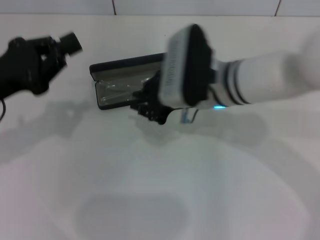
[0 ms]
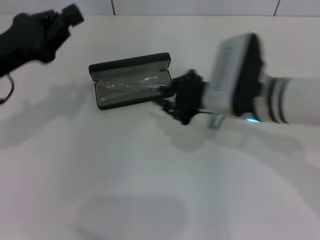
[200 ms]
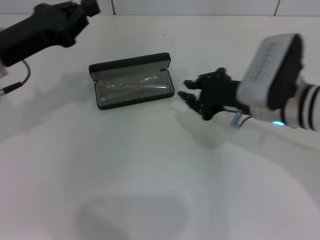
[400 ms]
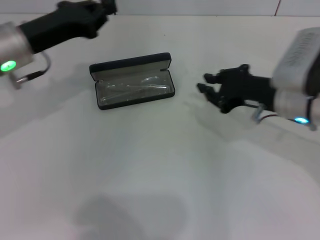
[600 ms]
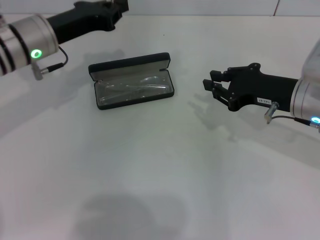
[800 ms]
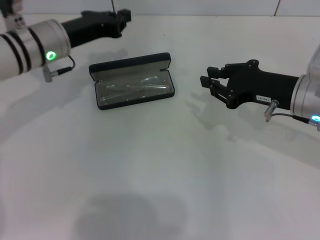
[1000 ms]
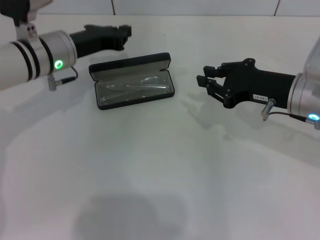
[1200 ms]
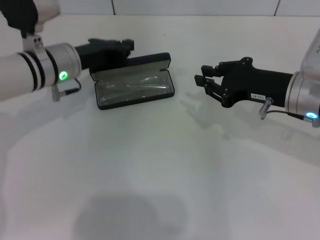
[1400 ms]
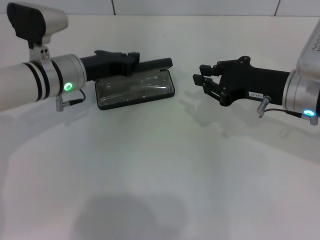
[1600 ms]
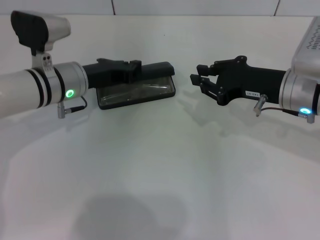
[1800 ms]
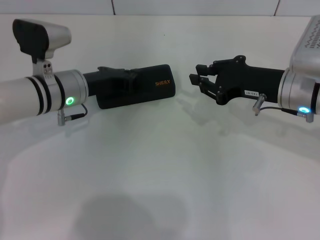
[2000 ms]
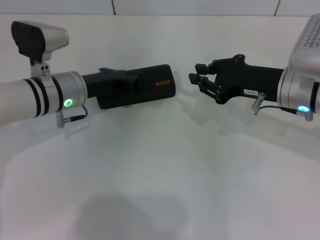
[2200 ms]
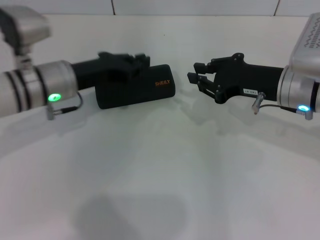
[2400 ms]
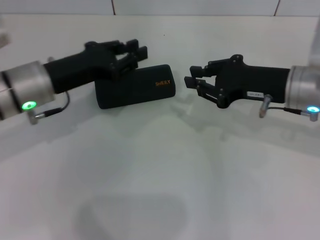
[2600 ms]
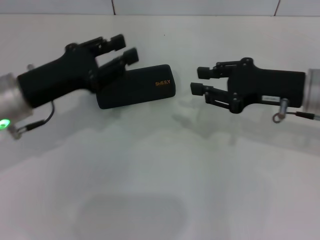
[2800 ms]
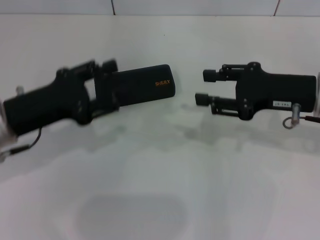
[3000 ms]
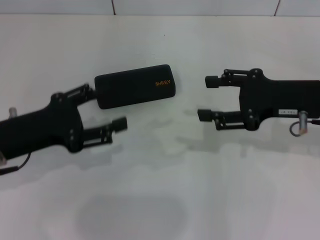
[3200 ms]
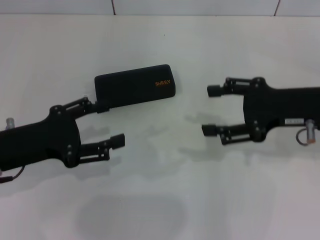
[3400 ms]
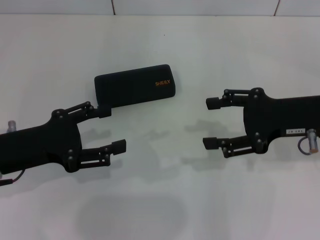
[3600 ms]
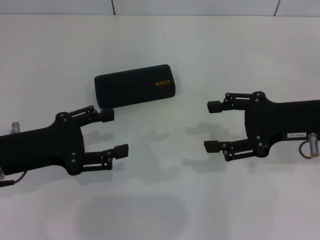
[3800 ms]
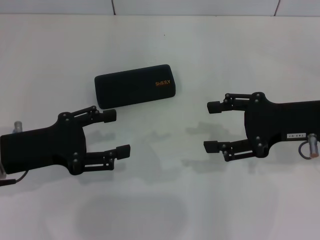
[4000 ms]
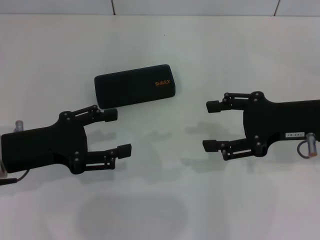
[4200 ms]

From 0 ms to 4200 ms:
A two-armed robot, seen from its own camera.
Step, from 0 ms to 1800 ms: Close the glasses case with your left hand.
From 0 ms to 1400 ms: The right gripper heads to the right, covering approximately 15 cm. Meanwhile the left gripper shifts roughly 15 cm forward, to the right and downward.
From 1400 ms to 2800 ms: The left gripper travels backward by approximately 10 cm.
From 2800 ms to 4200 ms: The right gripper opens; the left gripper travels backward by approximately 5 cm, and opens.

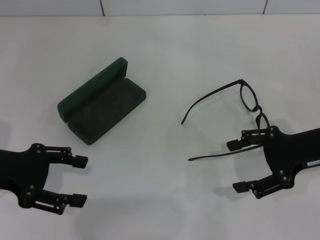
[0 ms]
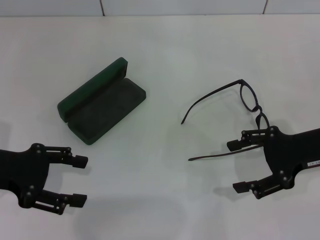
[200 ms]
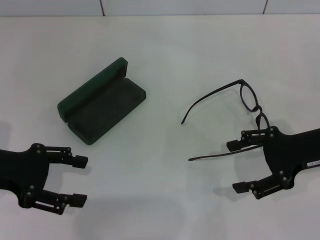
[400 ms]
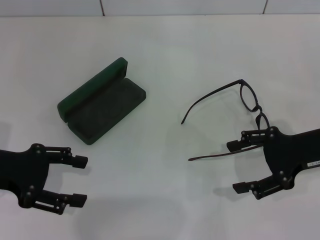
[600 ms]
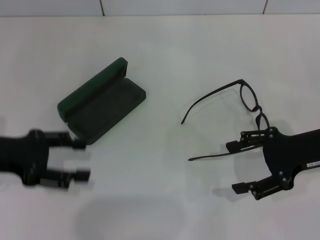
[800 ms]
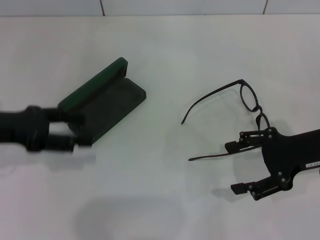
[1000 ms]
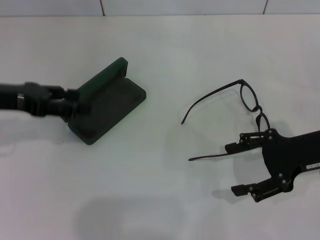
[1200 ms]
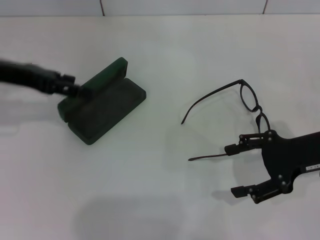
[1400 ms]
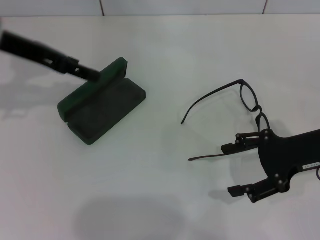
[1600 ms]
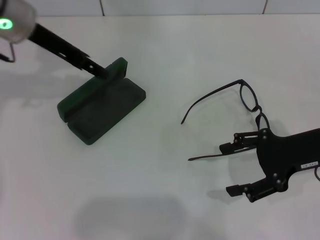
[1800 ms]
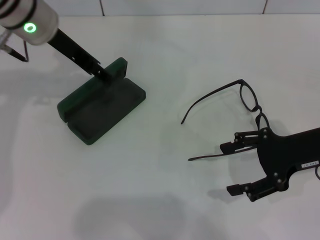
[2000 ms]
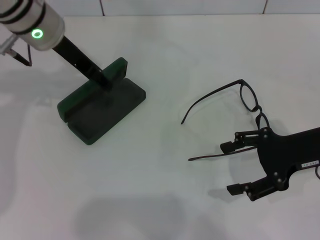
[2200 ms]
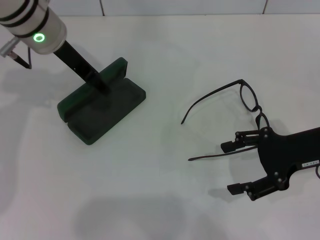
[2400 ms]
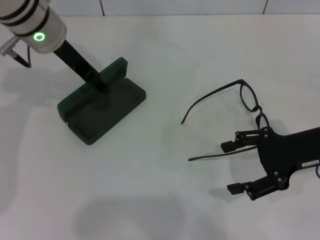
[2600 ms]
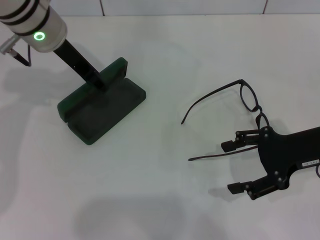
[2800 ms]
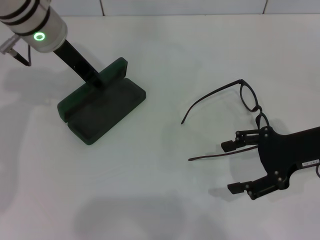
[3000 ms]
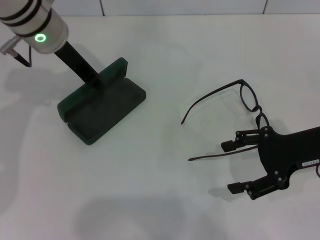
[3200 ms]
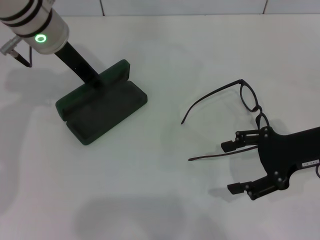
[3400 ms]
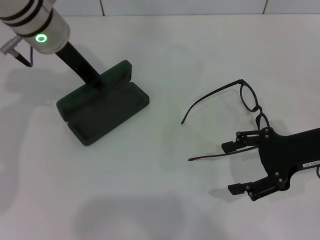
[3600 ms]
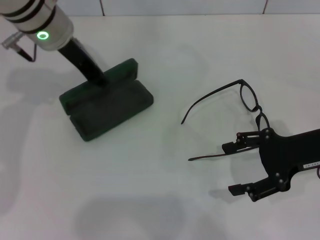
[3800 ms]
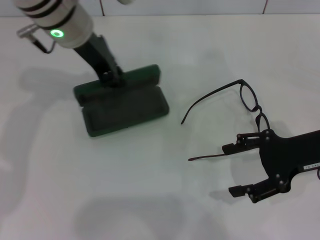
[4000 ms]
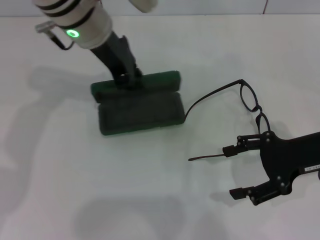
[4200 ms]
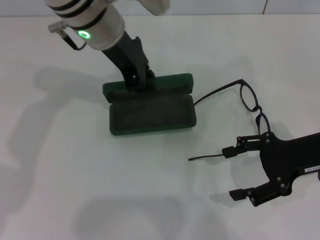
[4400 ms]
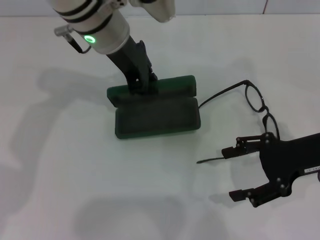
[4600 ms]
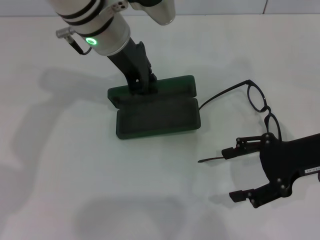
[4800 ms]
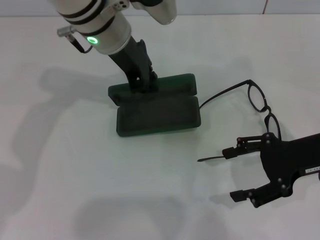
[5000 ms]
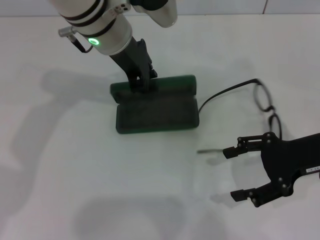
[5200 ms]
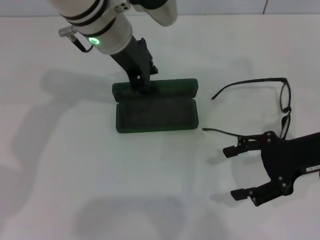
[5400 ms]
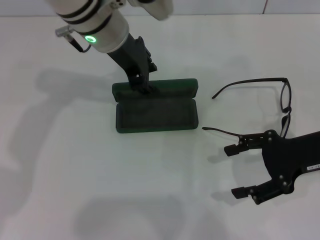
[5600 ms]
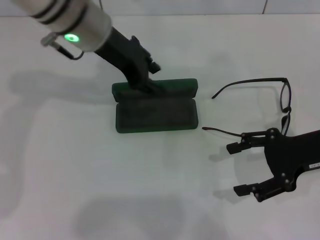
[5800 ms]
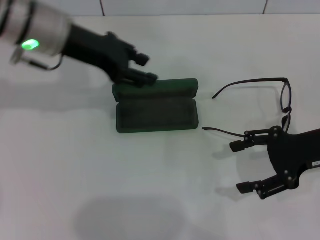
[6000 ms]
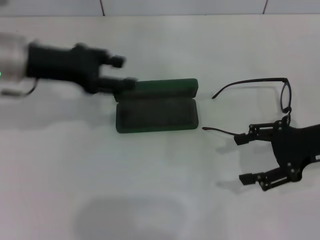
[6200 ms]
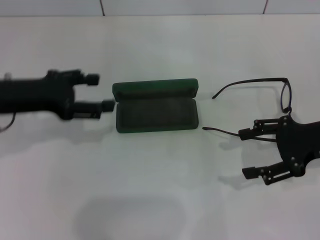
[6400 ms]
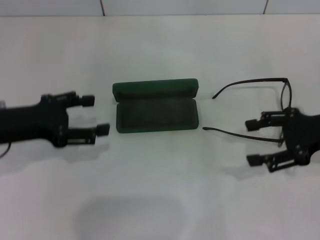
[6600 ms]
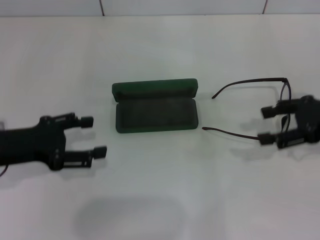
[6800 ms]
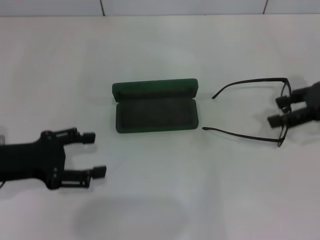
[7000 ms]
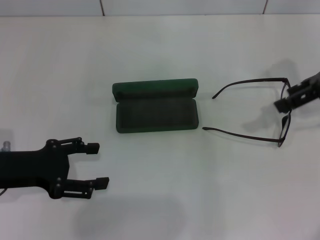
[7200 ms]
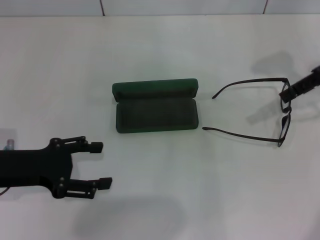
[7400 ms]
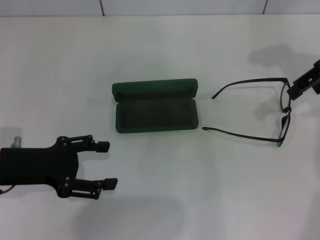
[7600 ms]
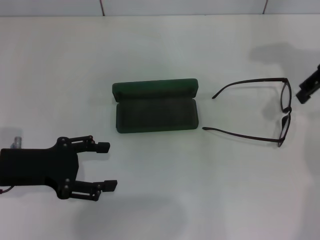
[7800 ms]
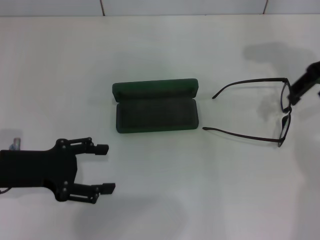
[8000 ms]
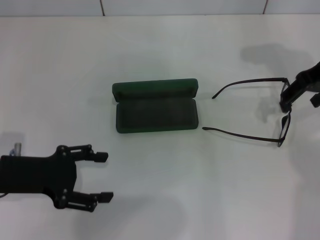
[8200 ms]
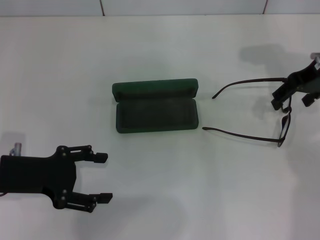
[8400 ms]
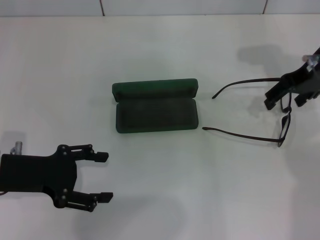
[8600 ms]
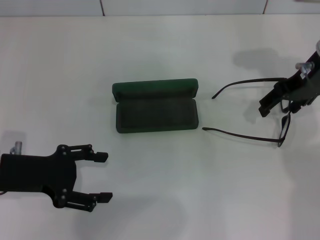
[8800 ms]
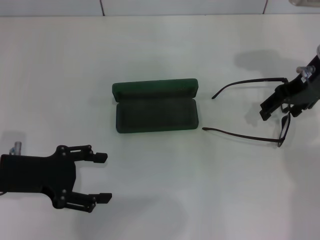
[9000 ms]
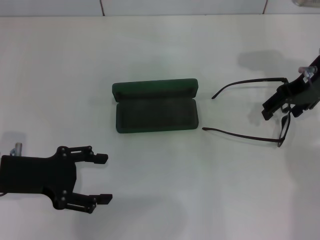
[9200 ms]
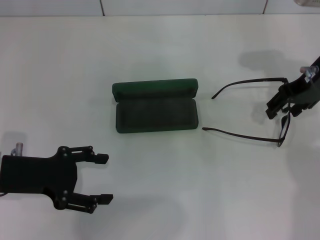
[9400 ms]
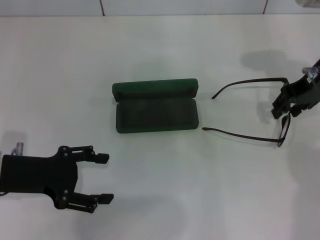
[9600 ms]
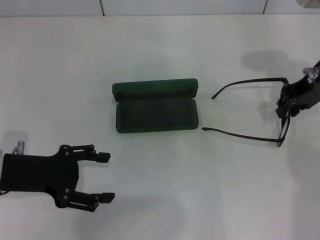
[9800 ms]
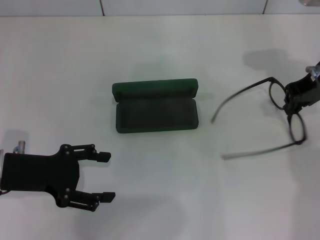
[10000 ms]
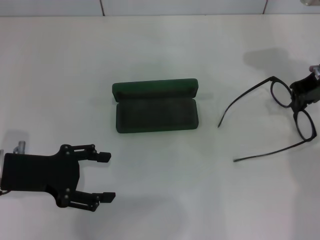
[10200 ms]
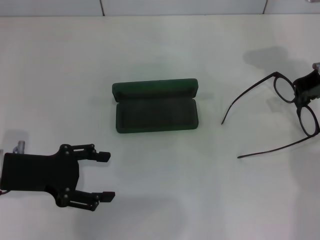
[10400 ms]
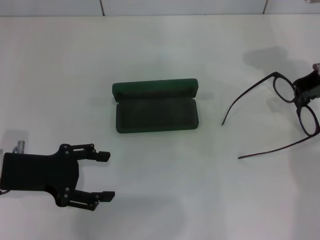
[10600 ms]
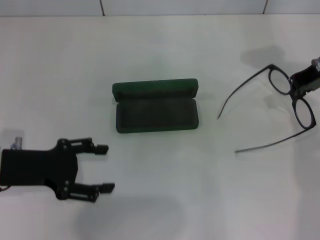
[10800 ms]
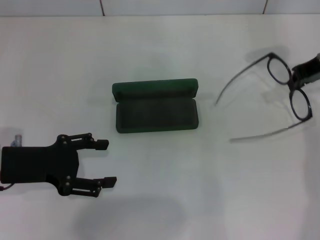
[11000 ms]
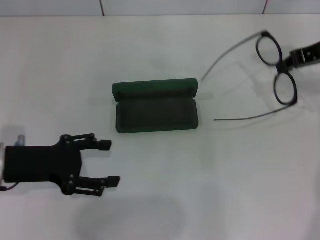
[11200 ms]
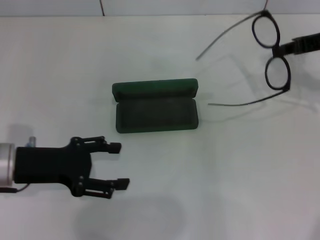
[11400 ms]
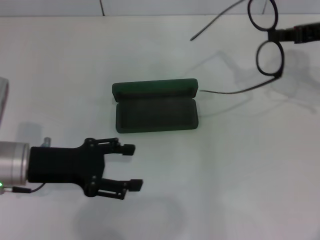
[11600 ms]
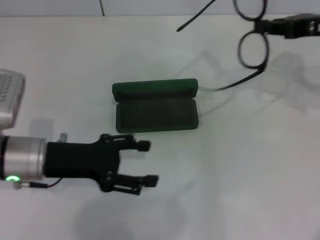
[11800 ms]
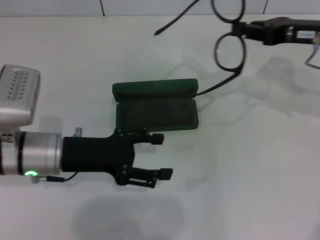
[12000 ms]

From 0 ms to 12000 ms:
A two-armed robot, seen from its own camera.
Step, from 0 ms to 3400 ms: Grab the glasses case with your left hand.
Step, from 3600 ms to 5600 ms: Place the glasses case in the center of the table with your left hand.
Step, from 5800 ms to 10000 ms: Grab the eyeglass frame with your right hand.
From 0 ms to 1600 ms: The left gripper goes approximately 15 cm forward and upward.
From 1600 ms to 3000 ms: The left gripper heads to the right, covering approximately 10 cm.
From 3000 ms to 4400 ms: The left gripper goes approximately 5 cm to the right, and closes.
From 4400 ms to 6000 ms: The left gripper moves to the left, some 10 cm, and opens.
From 6000 ms to 7600 ms: The left gripper heads backward, downward and to the left, covering some 20 cm. Meanwhile the right gripper travels upward and forward by about 15 cm.
From 7600 ms to 9000 ms: The right gripper moves downward, about 5 cm.
From 9000 ms to 10400 ms: The right gripper closes up.
From 10400 ms to 12000 ms: The left gripper goes roughly 5 cm to the right.

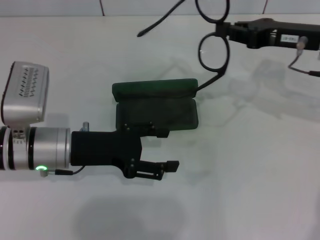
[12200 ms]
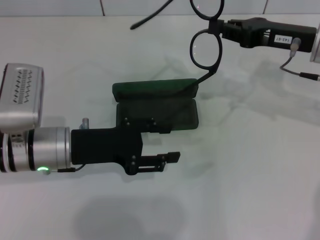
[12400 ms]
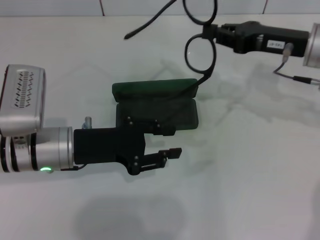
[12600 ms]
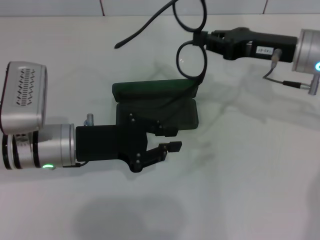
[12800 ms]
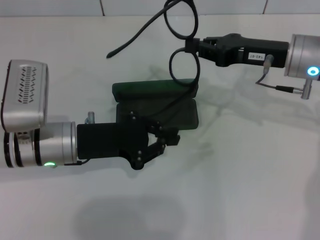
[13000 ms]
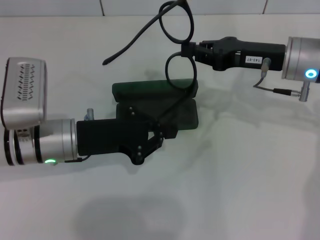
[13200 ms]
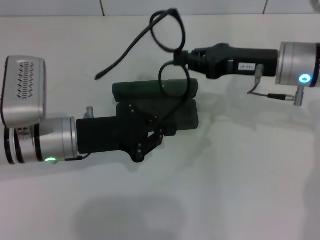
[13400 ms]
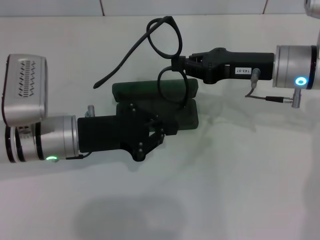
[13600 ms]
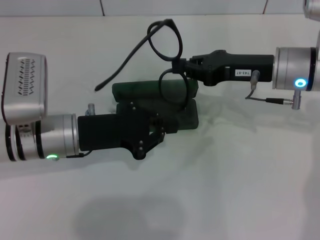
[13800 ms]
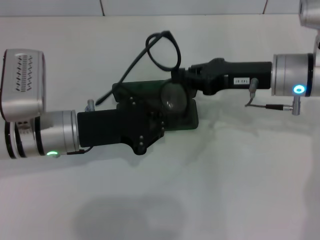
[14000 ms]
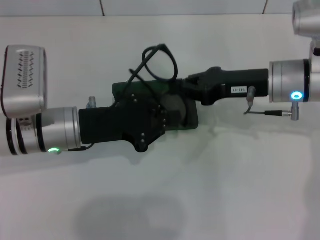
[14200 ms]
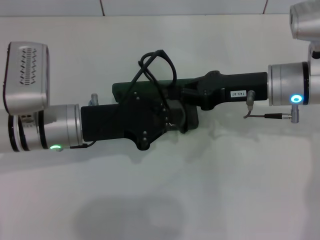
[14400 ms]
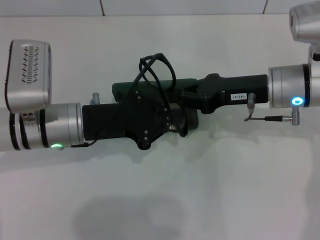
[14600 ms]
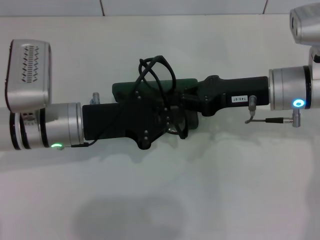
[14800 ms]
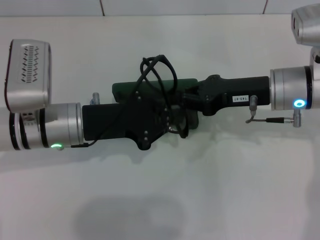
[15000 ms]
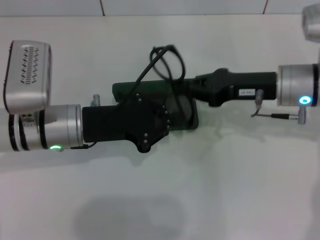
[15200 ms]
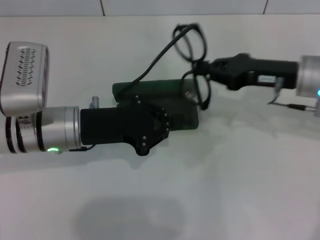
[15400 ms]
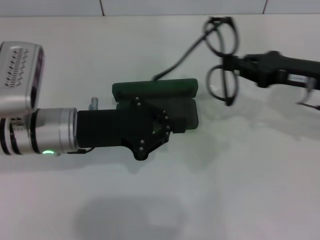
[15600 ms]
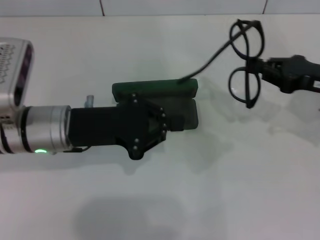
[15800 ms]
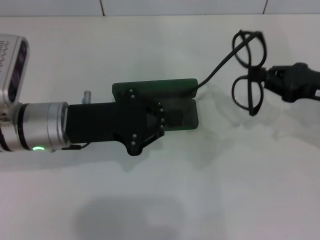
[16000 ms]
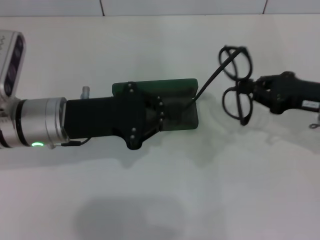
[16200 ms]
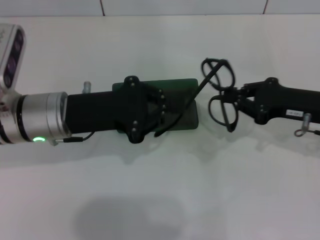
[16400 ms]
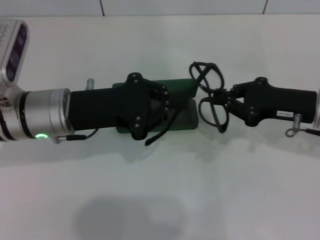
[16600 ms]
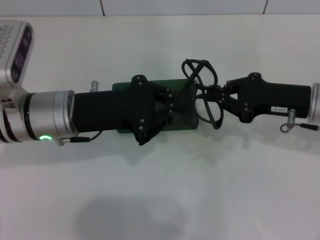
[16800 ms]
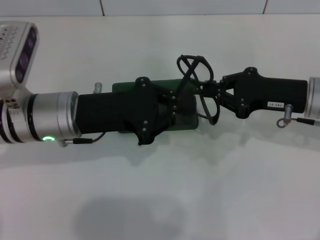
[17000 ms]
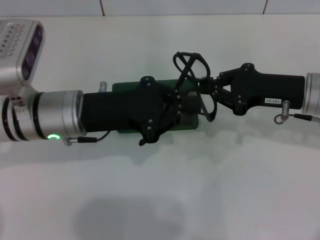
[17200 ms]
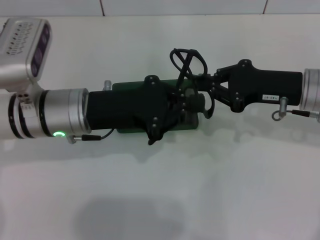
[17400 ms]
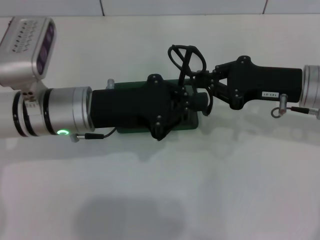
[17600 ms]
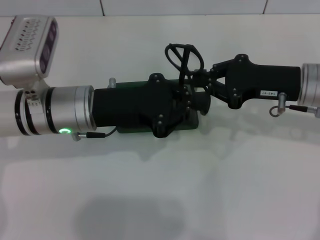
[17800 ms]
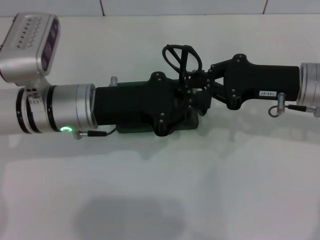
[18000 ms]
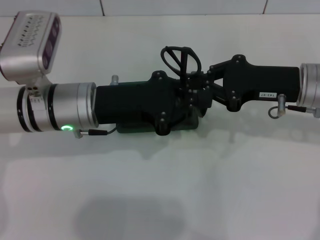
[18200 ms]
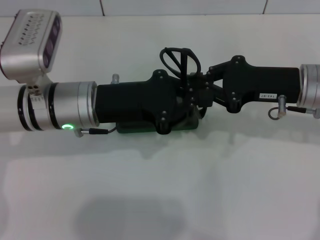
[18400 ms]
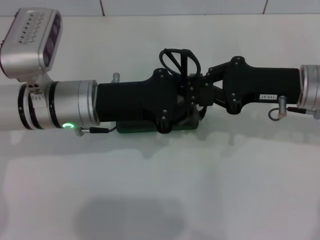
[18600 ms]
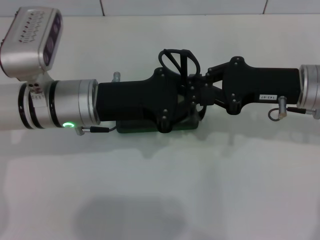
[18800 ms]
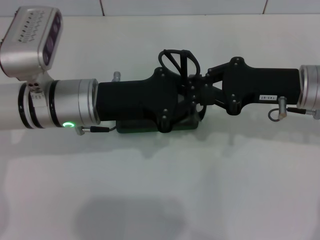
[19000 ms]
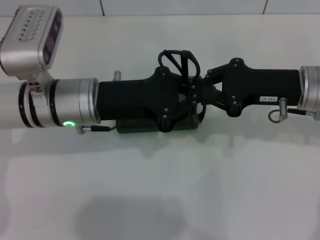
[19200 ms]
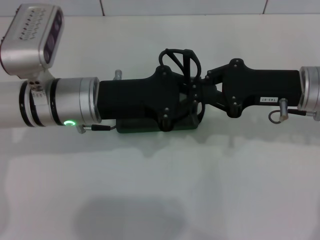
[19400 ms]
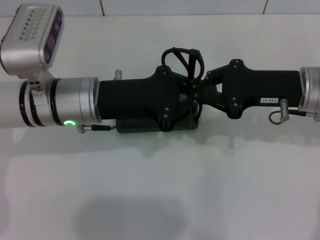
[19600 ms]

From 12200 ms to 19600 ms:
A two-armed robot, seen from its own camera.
From 12200 ms to 13600 ms: The left gripper closes; the right gripper travels to the left by roughly 5 cm.
From 15200 ms to 16600 ms: The right gripper goes roughly 5 cm to the right.
From 18200 ms to 19600 ms: Both grippers stay about where they are.
